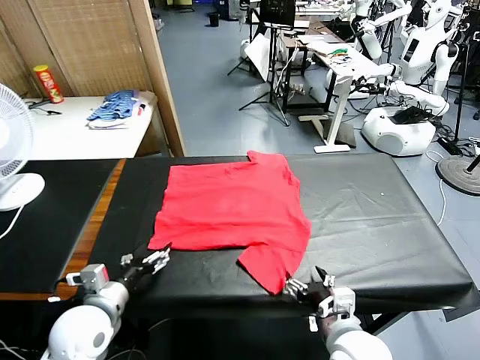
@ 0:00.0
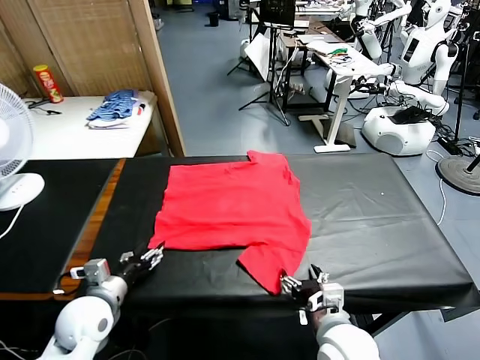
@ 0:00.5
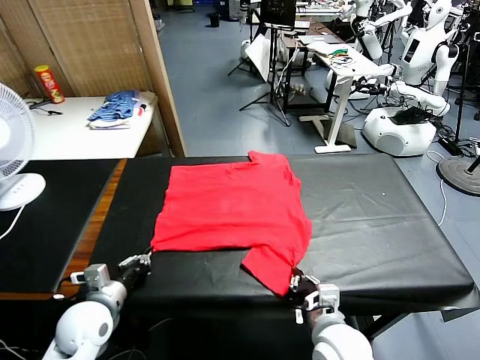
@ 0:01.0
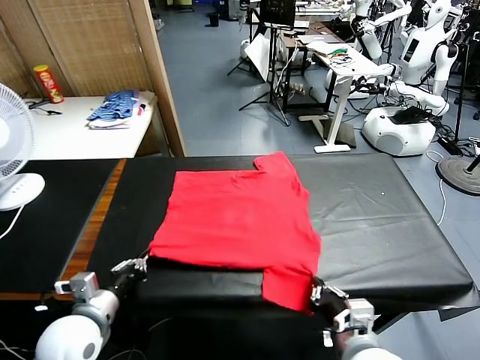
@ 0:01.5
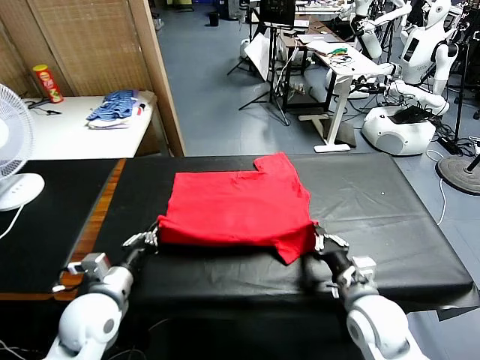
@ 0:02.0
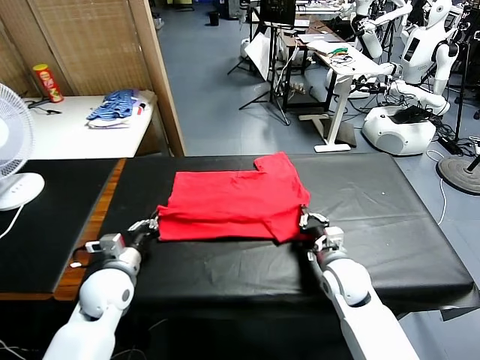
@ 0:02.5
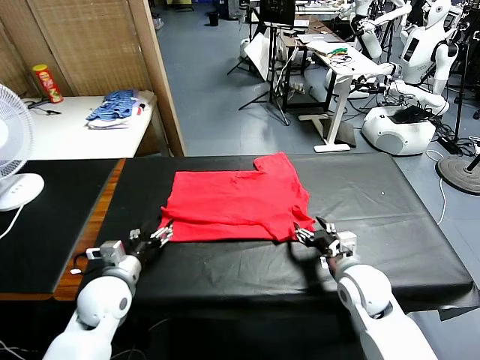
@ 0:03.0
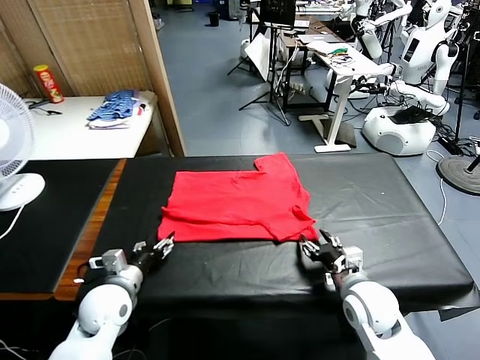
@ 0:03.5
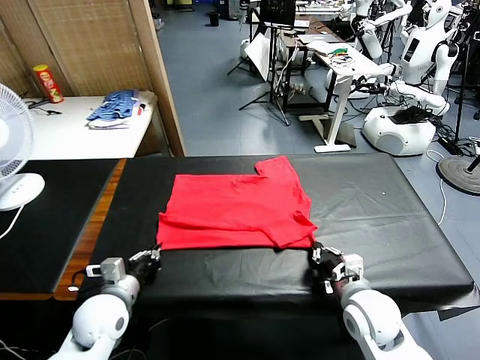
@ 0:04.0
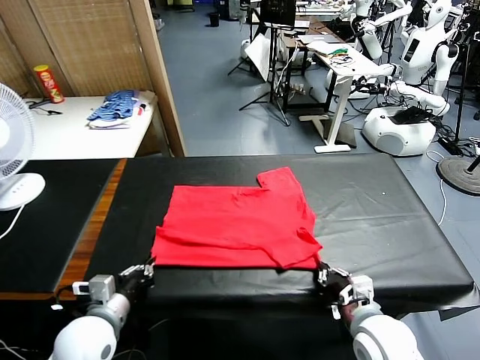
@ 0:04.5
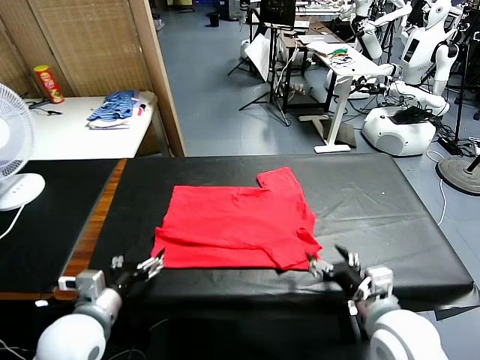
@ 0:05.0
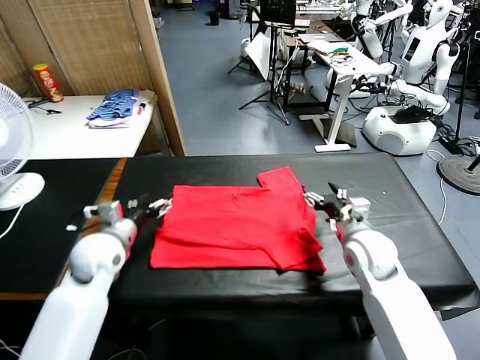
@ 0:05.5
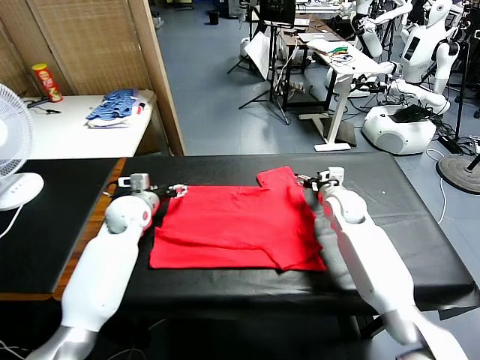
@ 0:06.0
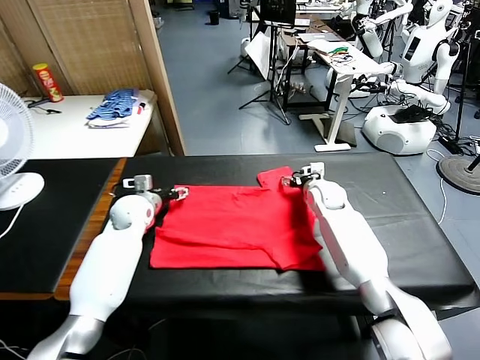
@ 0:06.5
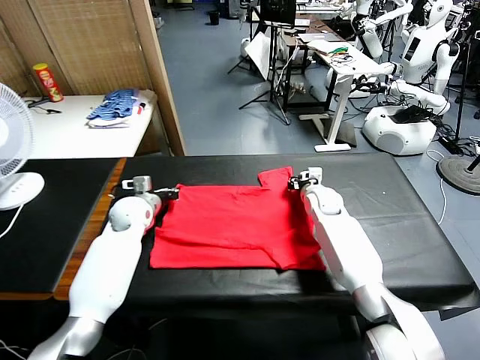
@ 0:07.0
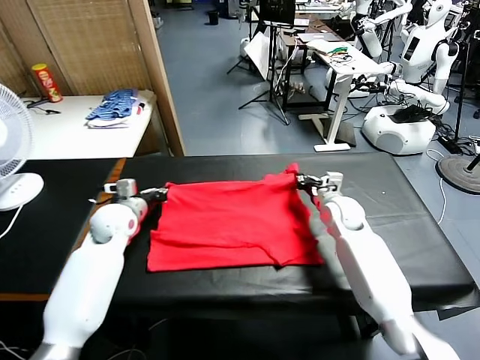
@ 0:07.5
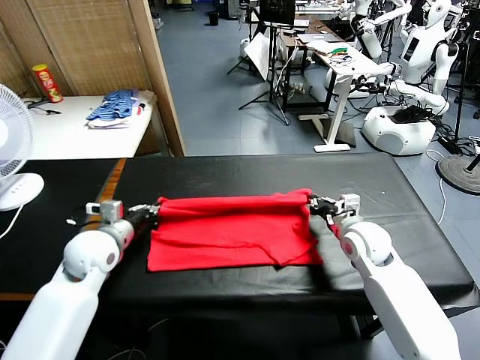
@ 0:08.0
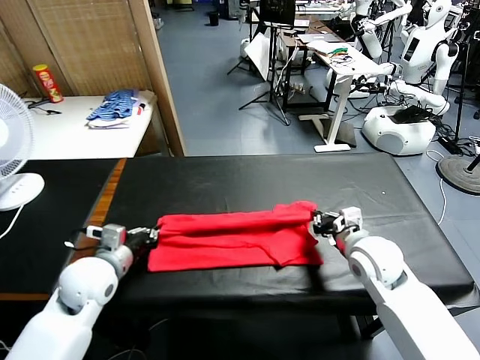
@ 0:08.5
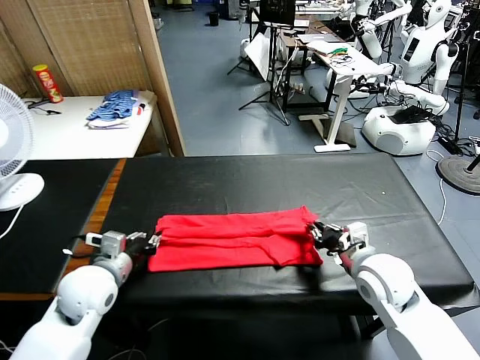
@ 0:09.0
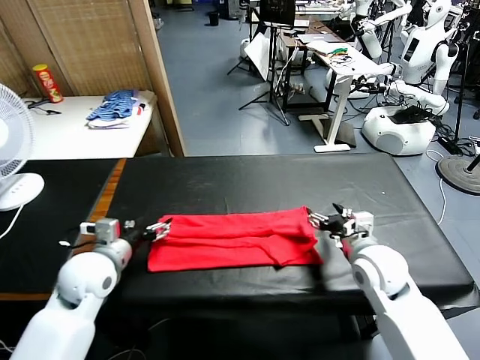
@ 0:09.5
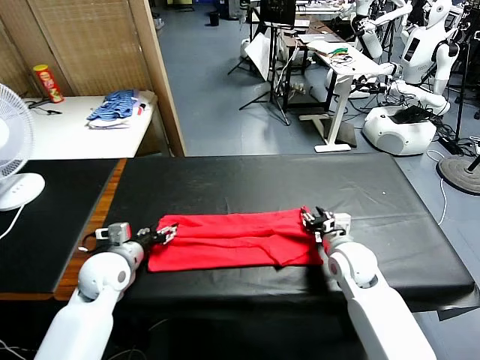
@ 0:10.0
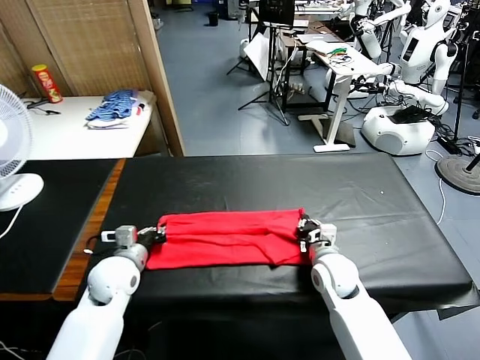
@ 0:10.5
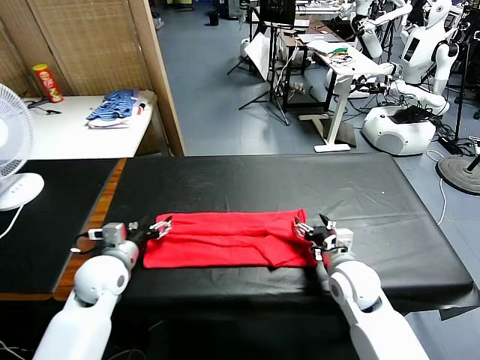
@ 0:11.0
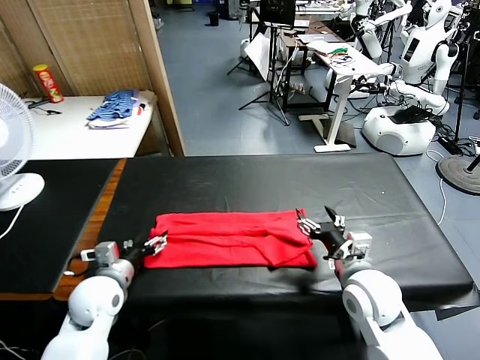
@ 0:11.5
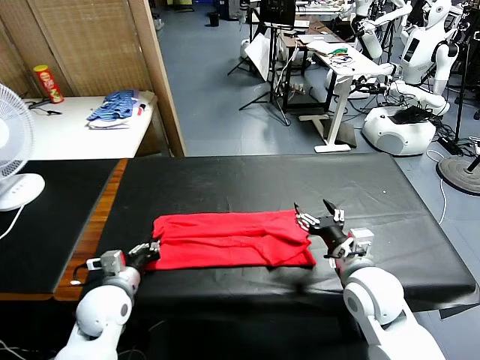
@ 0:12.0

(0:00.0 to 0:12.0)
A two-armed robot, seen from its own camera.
Task of the whole recording: fold and organize the clothes.
Step, 0:00.0 - 0:01.0: use both grippers simultaneously to clamp the lower edge of the clothing fabric.
Step, 0:01.5 - 0:03.0: use both grippers to drag the lower edge of the fabric forward and fold it over the upper edge.
Step, 0:03.5 - 0:04.5: Drag the clothes downward with both gripper.
Step, 0:05.5 - 0:07.0: use both grippers simultaneously to clamp the upper edge of the clothing fabric.
Step, 0:07.5 - 0:09.0: use both grippers to drag the upper edge of the fabric backward and fold it over the lower edge.
0:02.0 - 0:04.0: The left gripper opens, then closes again. The right gripper shifts approximately 10 cm backward, and opens, then closes again.
0:04.0 - 0:06.0: Both grippers travel together forward, about 30 cm. The right gripper opens up; the left gripper opens its fingers.
0:06.0 - 0:08.0: Both grippers travel together backward, approximately 15 cm. The left gripper closes up. The right gripper closes its fingers.
0:08.0 - 0:10.0: Both grippers move downward, approximately 5 cm. The right gripper opens and closes again; the left gripper opens up.
0:10.0 - 0:12.0: The right gripper shifts approximately 15 cm backward and upward, and opens its fingers, while the left gripper heads backward, covering about 5 cm, and closes up.

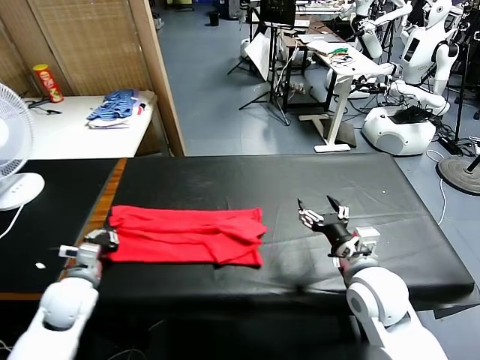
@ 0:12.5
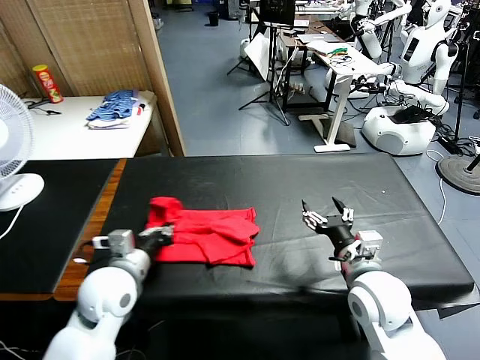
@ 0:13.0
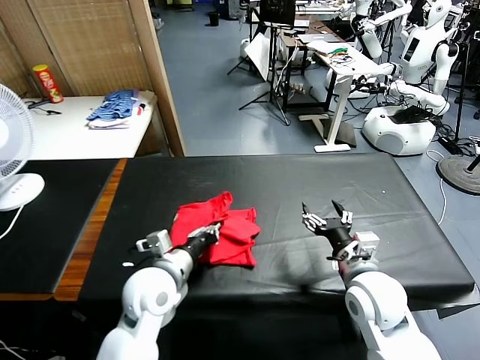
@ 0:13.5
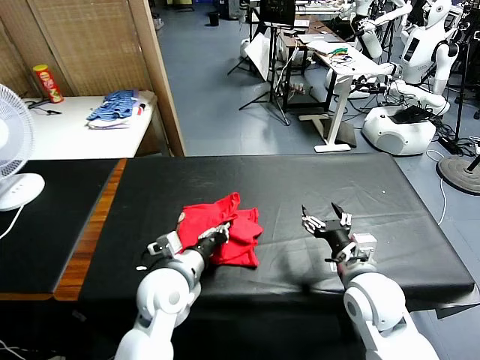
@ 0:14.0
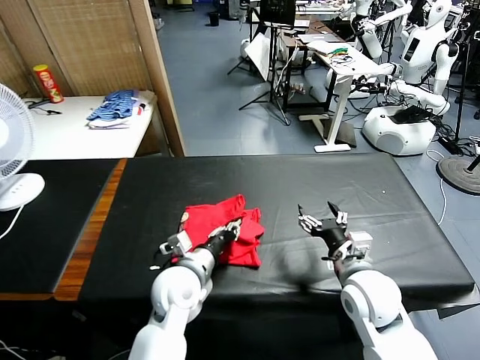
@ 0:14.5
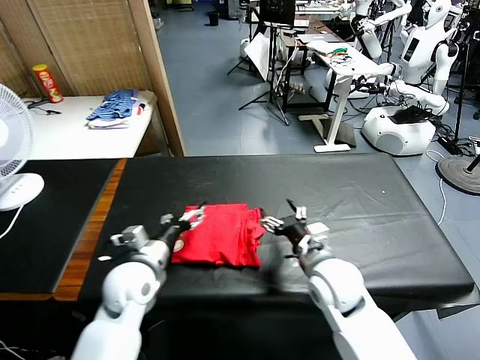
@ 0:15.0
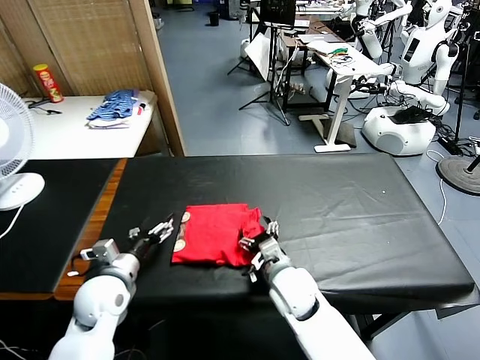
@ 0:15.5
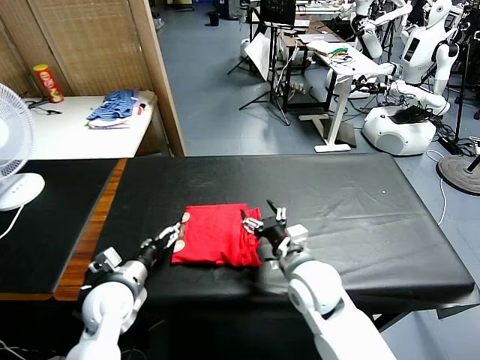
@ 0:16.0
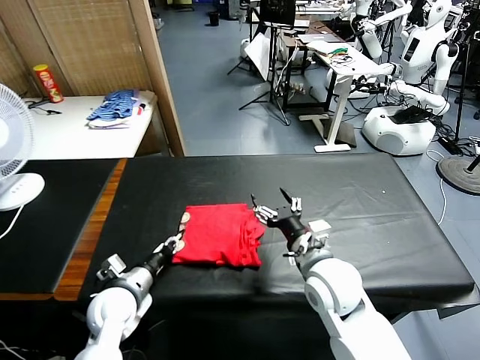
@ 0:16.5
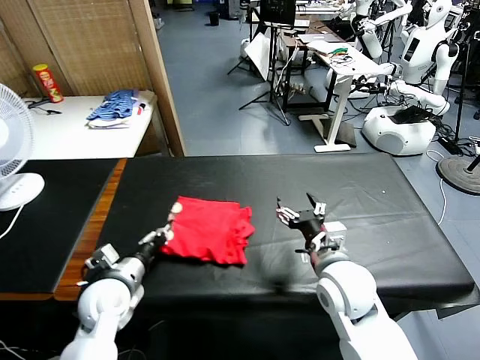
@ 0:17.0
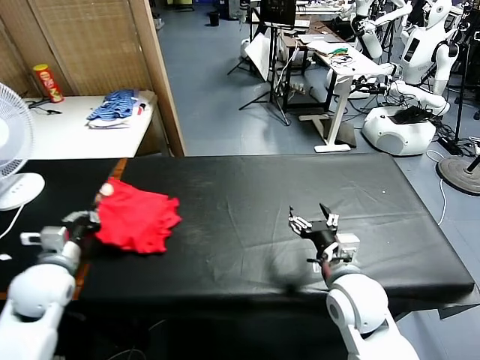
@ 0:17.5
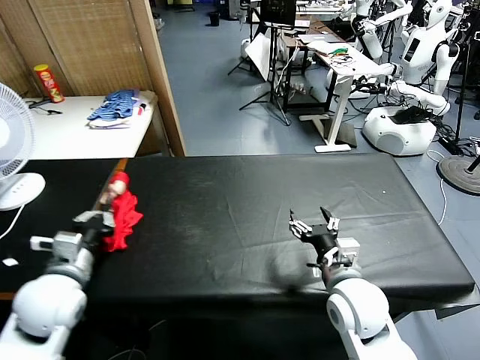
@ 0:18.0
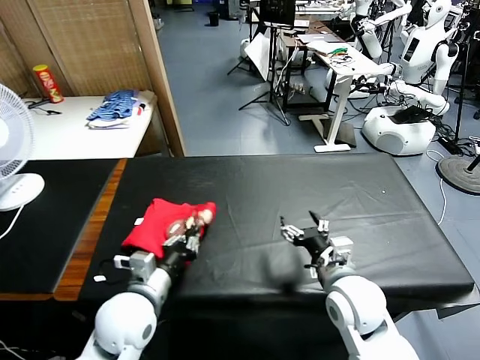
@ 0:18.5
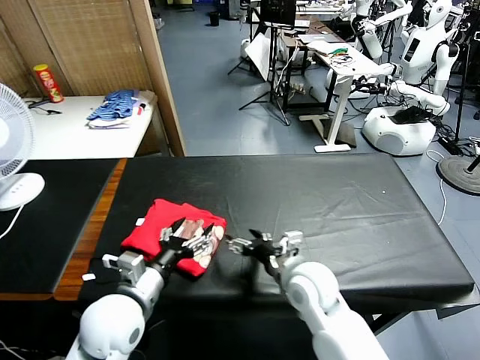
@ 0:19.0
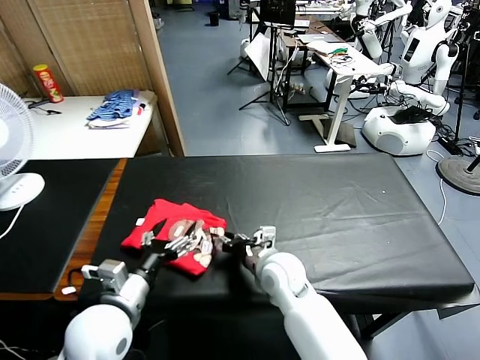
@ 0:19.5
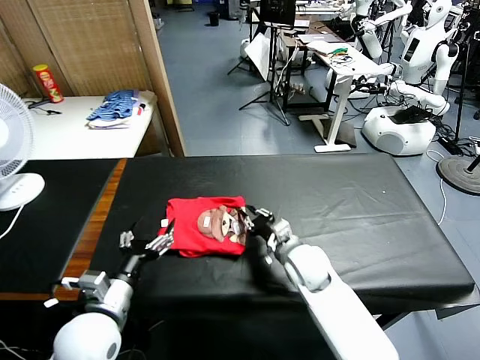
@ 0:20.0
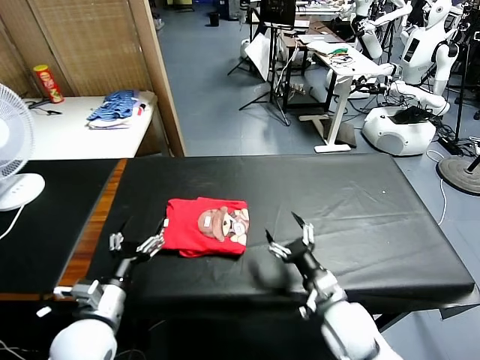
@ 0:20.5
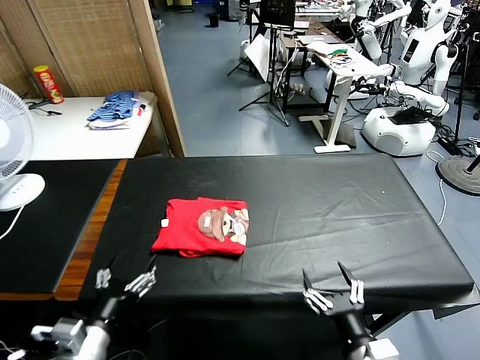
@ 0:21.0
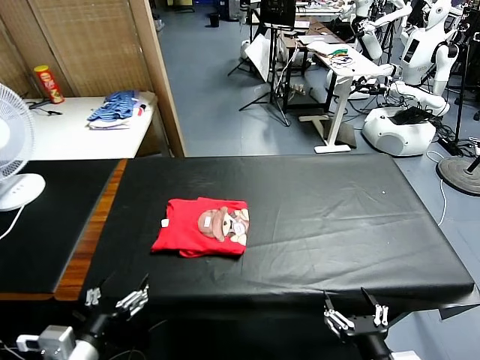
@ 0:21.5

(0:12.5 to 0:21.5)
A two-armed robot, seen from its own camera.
Task of the whole recording: fold and organize the clothes.
Step, 0:12.5 - 0:14.5: use the left gripper to drag the left edge of the fabric to the left and folds it over the right edge.
Step, 0:15.0 - 0:19.0: Flip the folded clothes over with left gripper.
Step, 0:19.5 - 0:20.0: Drag the clothes to the center of the table.
0:12.5 - 0:14.5: The left gripper moves to the right, roughly 25 cm.
0:14.5 - 0:17.0: The left gripper moves to the left, some 15 cm, and opens and closes again.
0:17.0 - 0:19.5: The left gripper heads upward and backward, covering roughly 10 cm, moves roughly 10 cm to the left and comes back, and opens up. Meanwhile the right gripper goes some 15 cm to the left, downward and forward.
0:19.5 - 0:21.5: The left gripper shifts some 10 cm backward; the right gripper shifts about 30 cm backward and to the right, and closes, then reopens.

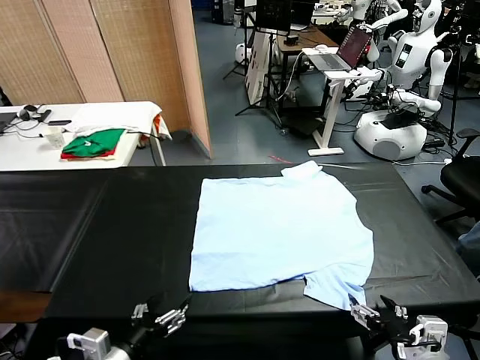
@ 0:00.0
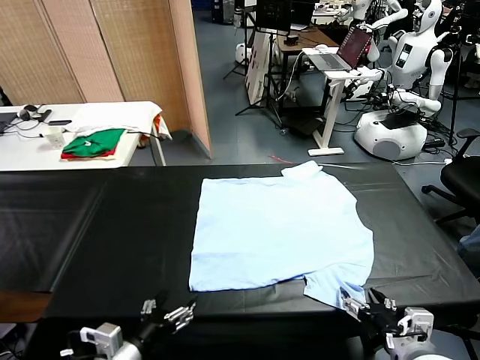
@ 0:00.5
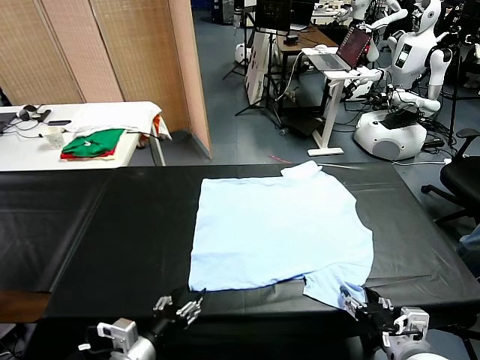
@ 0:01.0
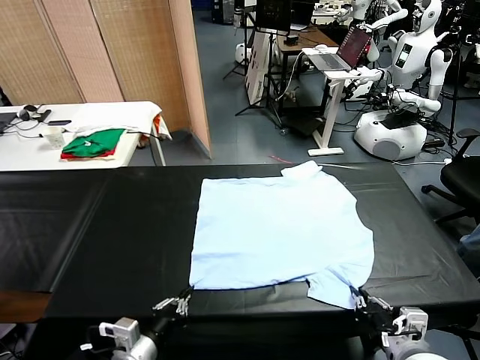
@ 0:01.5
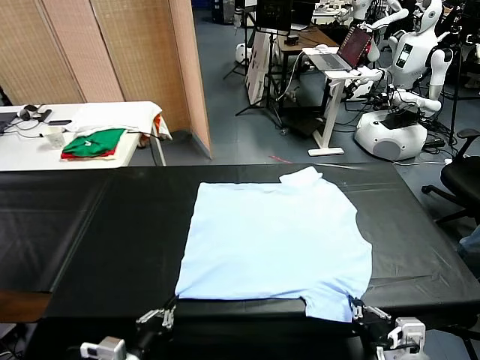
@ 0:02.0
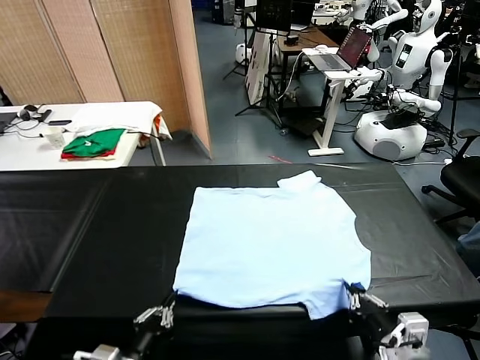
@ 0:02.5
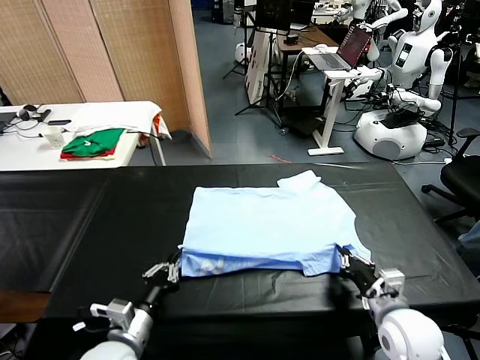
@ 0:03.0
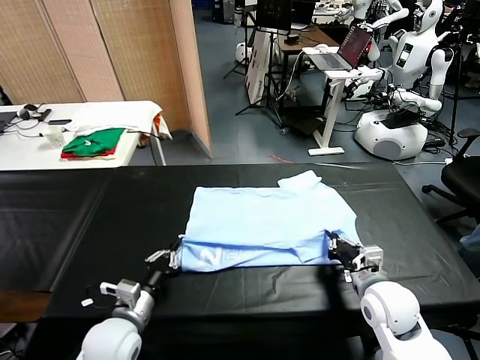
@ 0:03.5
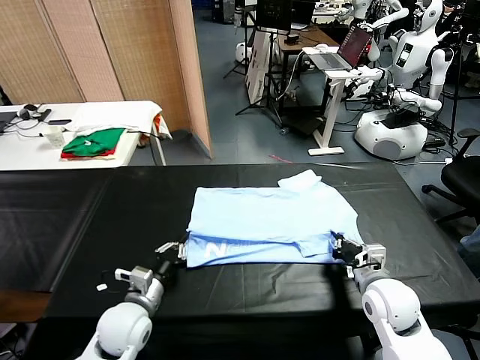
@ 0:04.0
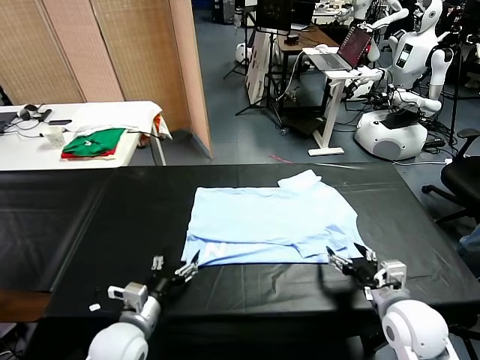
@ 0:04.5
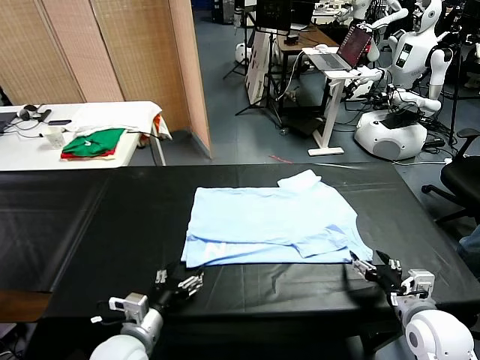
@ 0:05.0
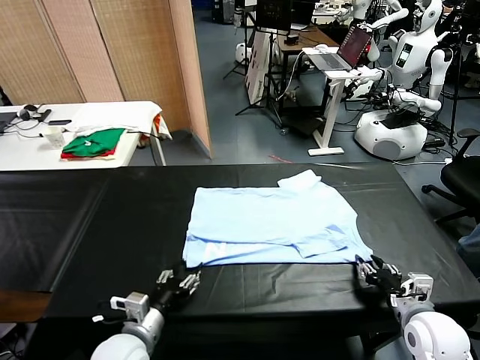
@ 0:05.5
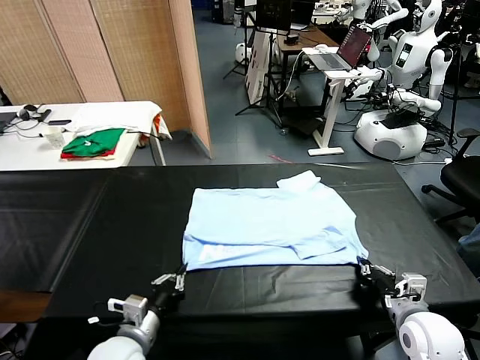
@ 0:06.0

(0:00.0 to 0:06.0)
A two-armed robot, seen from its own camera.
Task of the whole recording: fold and organize the clothes.
Step, 0:00.0 - 0:01.0: use both grippers simultaneously to clamp the lower edge of the clothing fabric.
Step, 0:01.5 - 0:04.0: use both grippers to drag the lower edge of the fabric forward and fold it over the upper edge.
0:02.0 - 0:04.0: Both grippers travel together forward, roughly 15 cm. The right gripper opens its fingers.
0:04.0 - 0:06.0: The grippers both shift backward by roughly 5 cm. The right gripper closes; the left gripper opens, then closes again.
